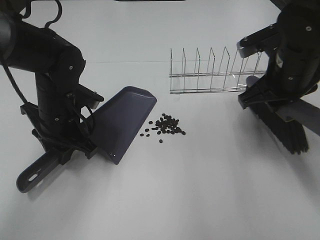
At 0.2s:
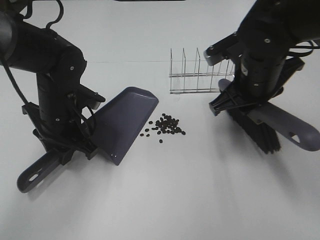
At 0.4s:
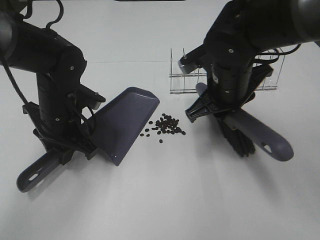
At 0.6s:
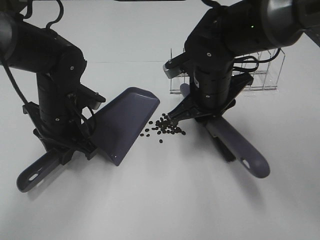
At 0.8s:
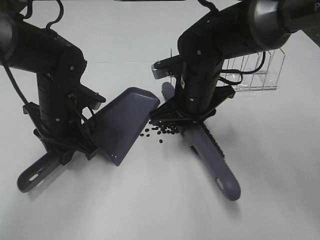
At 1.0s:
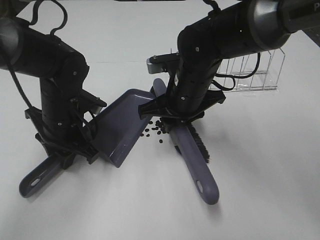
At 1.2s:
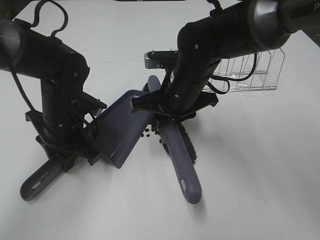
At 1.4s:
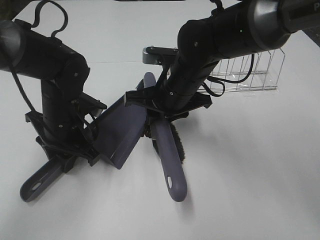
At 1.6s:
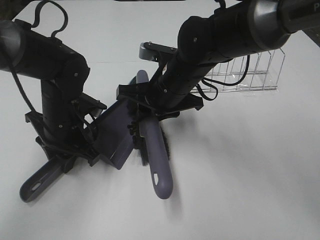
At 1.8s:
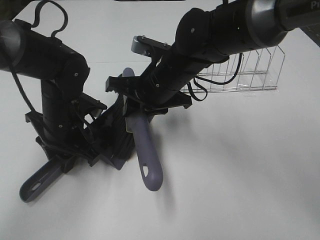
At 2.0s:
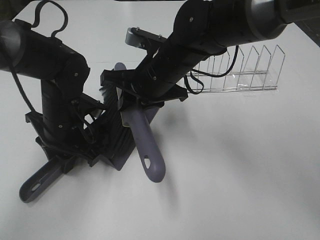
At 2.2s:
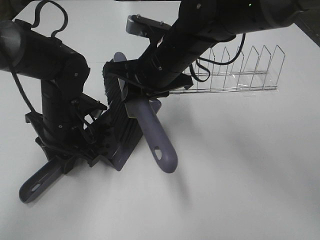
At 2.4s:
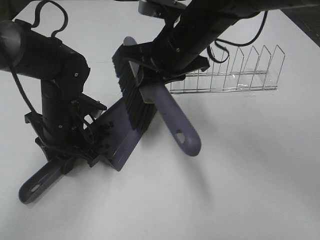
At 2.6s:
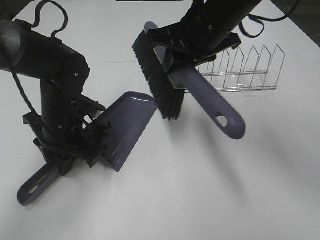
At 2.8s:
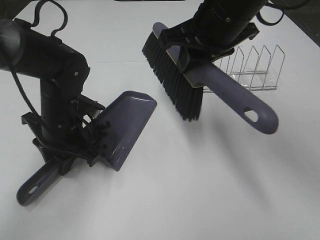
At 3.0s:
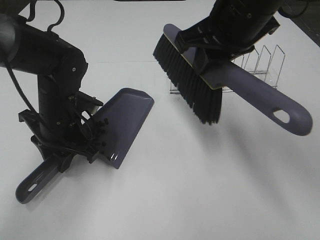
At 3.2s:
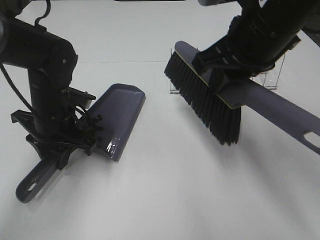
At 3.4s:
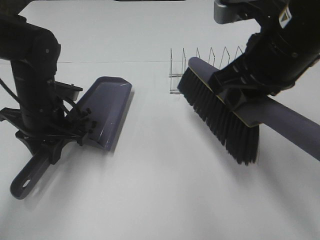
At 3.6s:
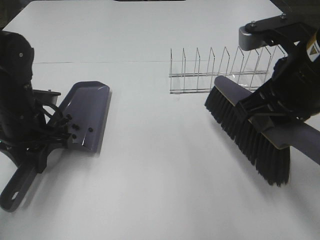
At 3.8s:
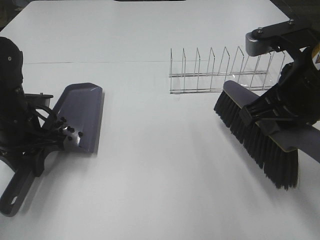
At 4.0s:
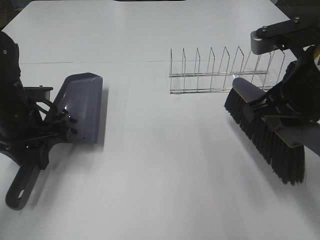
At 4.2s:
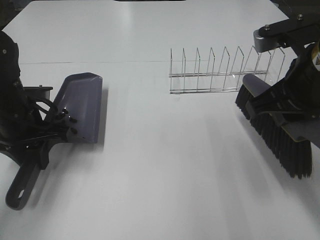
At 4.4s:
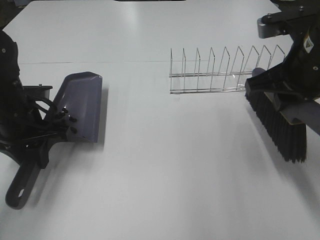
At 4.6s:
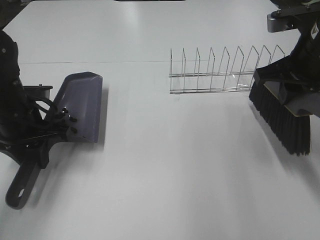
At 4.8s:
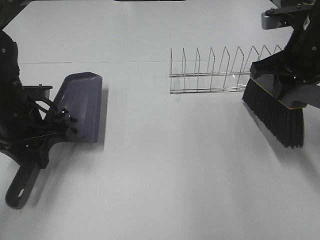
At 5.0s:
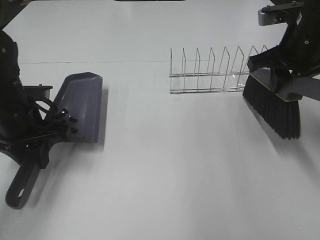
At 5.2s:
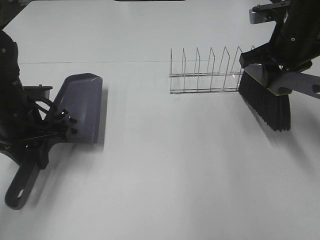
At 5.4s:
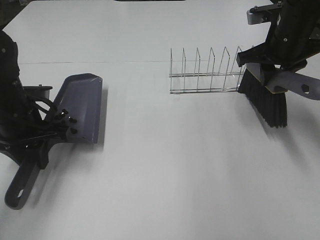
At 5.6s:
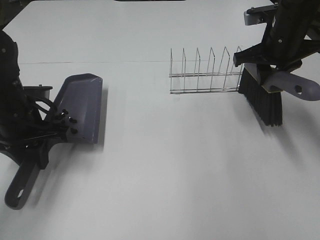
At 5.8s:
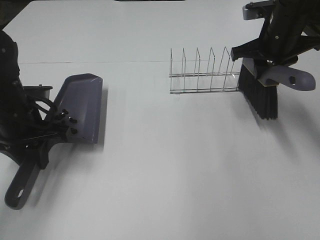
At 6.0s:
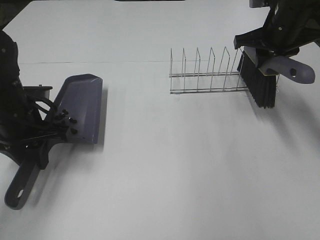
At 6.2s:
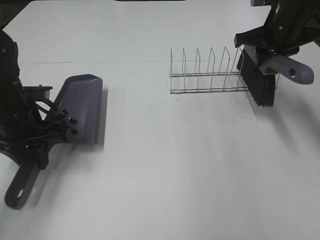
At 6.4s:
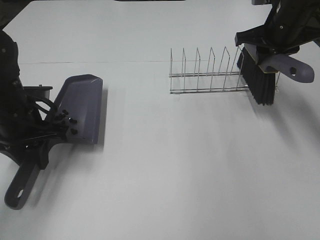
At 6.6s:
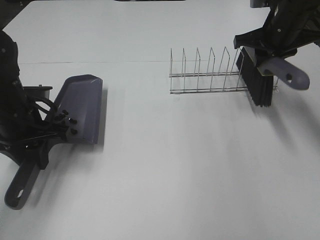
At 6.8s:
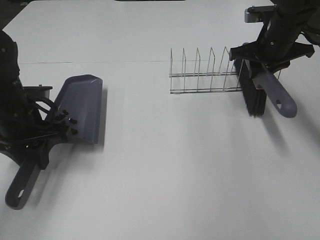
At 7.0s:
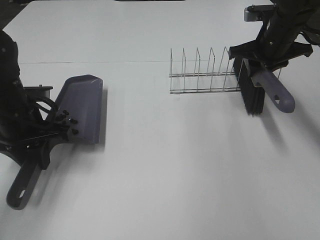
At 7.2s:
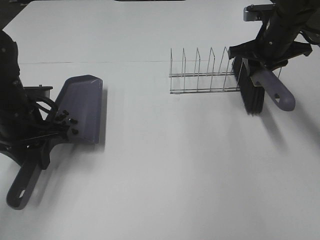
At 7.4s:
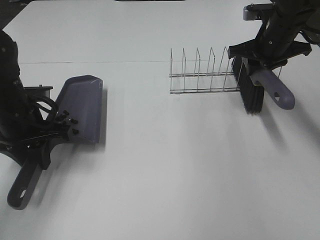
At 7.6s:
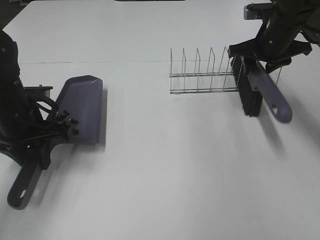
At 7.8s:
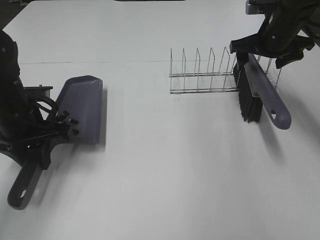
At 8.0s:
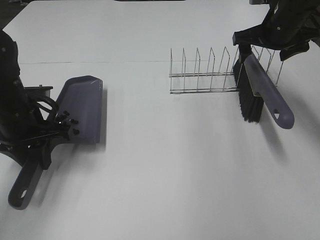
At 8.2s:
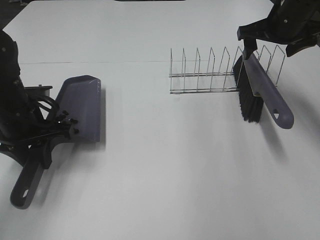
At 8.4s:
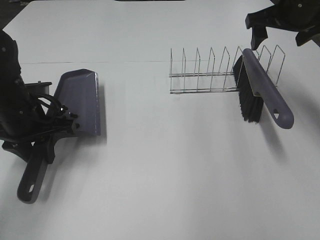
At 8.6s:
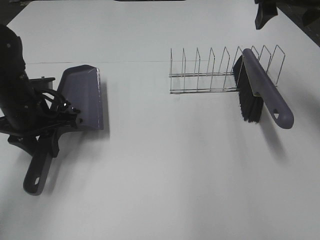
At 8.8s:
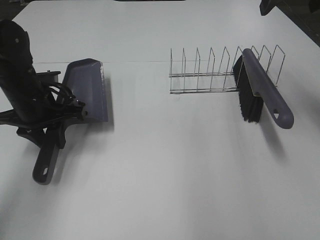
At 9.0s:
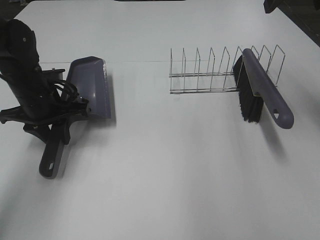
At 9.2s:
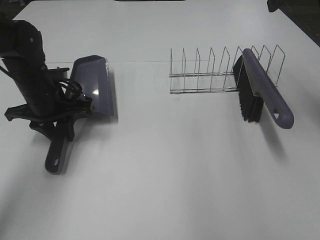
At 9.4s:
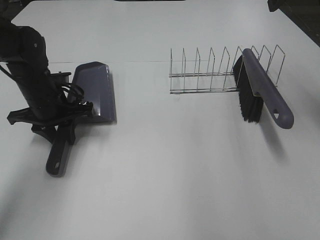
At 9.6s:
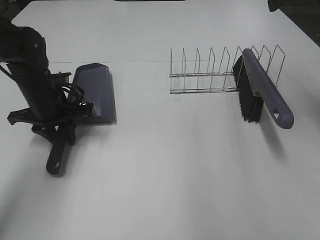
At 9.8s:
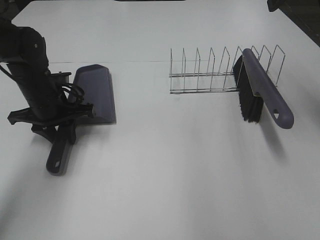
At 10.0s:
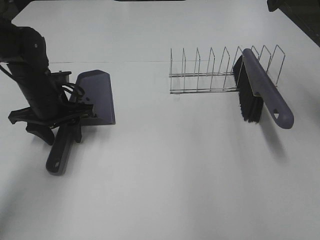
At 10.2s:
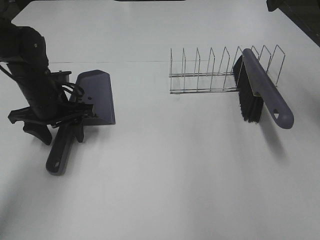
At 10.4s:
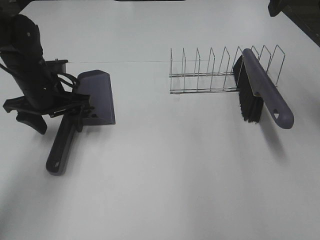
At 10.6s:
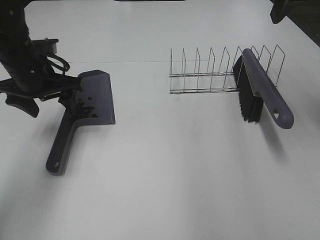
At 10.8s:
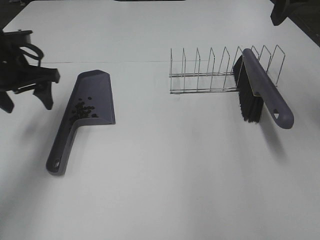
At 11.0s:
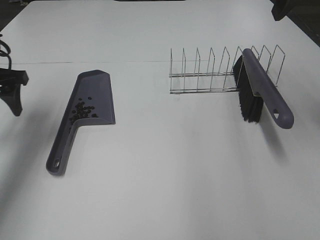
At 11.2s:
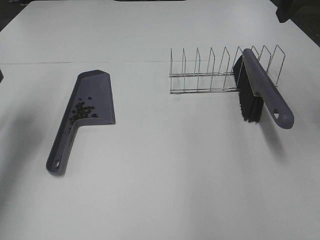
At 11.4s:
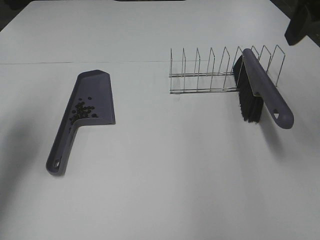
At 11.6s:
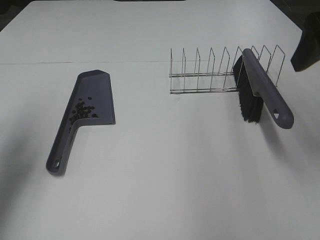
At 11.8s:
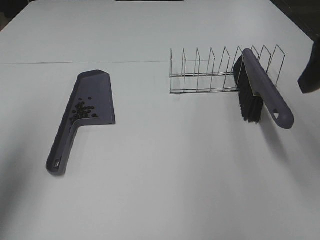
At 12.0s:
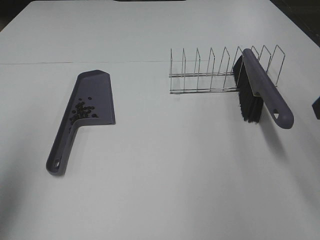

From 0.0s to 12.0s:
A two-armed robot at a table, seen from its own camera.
Task of the whole recording: Sweep Coffee Bean.
Step, from 0.0s to 2.0s: Right hand:sweep the coffee beans into the dustpan.
Step, from 2.2s to 7.6s: Right hand:place the broom on the rack.
Step, from 7.8s to 10.0s: Left hand:place the dustpan on the table.
From 0.0s to 1.6s: The right gripper shifts roughly 15 cm to the left.
From 1.6s to 3.0s: The right gripper goes roughly 15 cm upward and to the right.
From 3.0s to 4.4s: The left gripper moves to the left, roughly 5 cm; the right gripper travels to the right by about 10 cm.
From 4.4s to 6.0s: The right gripper heads forward, covering about 15 cm.
From 6.0s to 7.6s: The right gripper opens up.
From 7.6s to 9.0s: The left gripper moves forward, roughly 5 cm; the right gripper goes some 20 cm upward and backward, and opens its fingers.
From 9.0s to 10.4s: The left gripper opens up.
From 10.4s to 12.0s: The right gripper moves backward, approximately 15 cm. Meanwhile the left gripper travels backward, upward and to the left by approximately 30 cm.

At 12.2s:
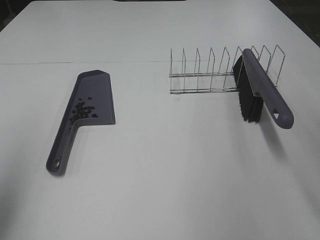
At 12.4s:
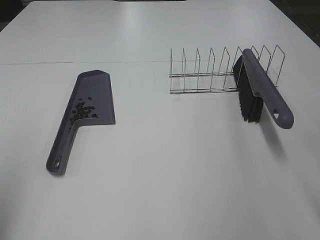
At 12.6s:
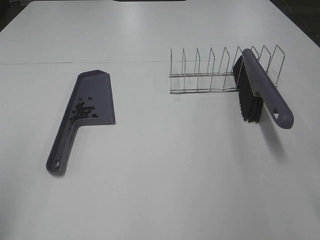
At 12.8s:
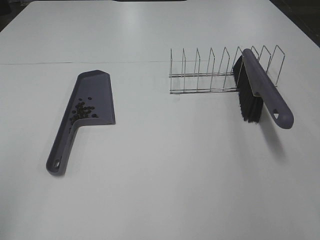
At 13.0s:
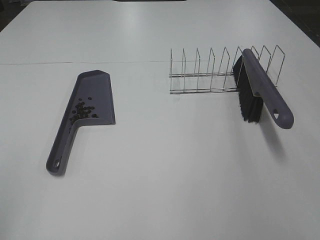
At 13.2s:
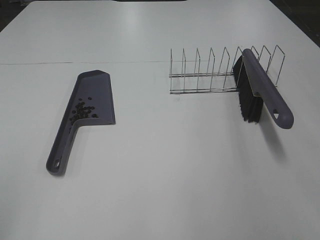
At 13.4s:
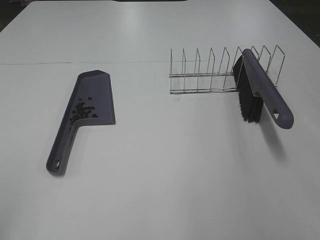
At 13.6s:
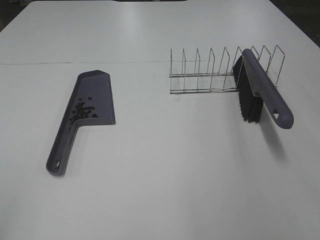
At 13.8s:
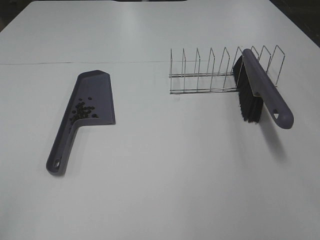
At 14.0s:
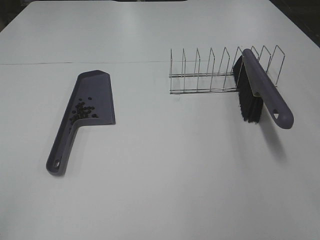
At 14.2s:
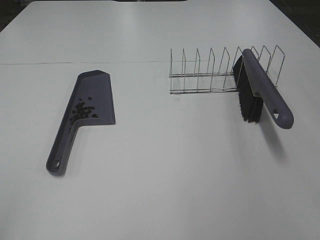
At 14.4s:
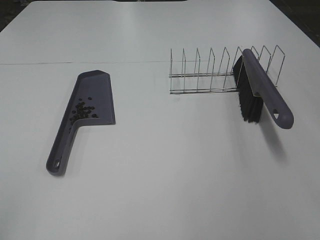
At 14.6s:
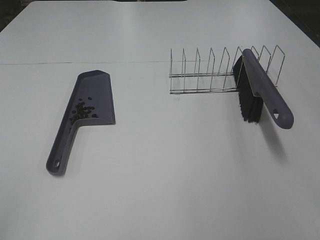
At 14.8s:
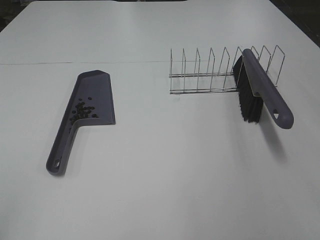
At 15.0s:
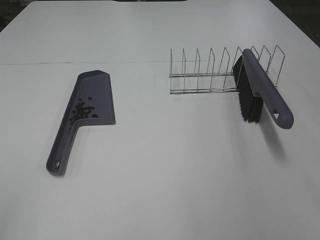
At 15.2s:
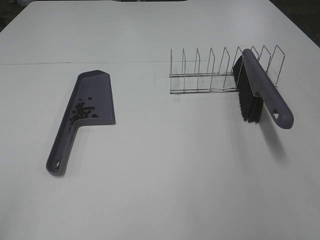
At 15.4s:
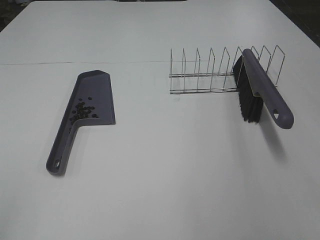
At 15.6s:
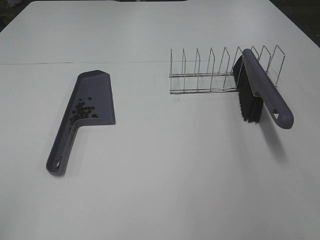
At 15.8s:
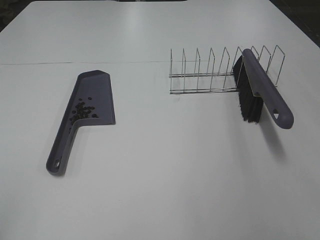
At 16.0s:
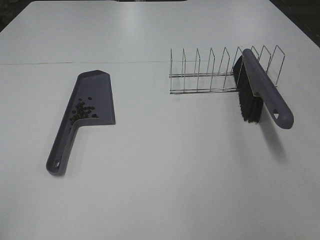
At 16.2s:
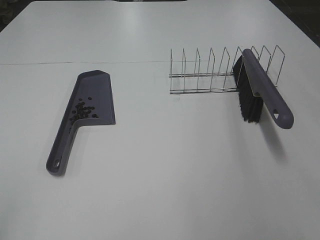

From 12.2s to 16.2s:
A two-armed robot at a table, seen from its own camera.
Task of the whole recording: Sweep Coffee Bean.
From 12.2s to 13.6s: The left gripper moves backward, some 15 cm.
From 13.6s to 14.8s: Neither gripper changes place.
From 14.8s to 16.2s: Both grippers stay about where they are.

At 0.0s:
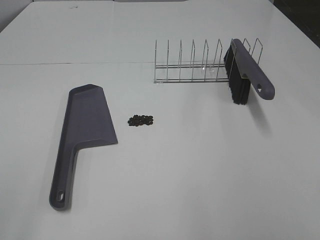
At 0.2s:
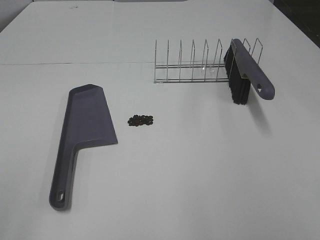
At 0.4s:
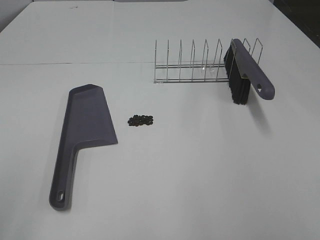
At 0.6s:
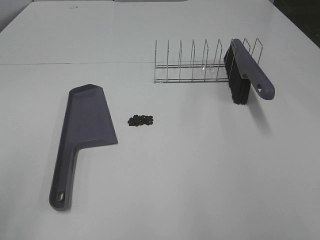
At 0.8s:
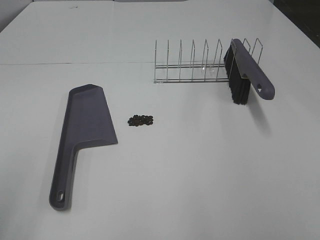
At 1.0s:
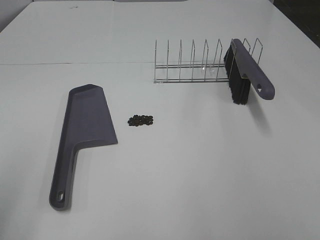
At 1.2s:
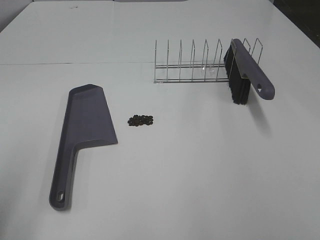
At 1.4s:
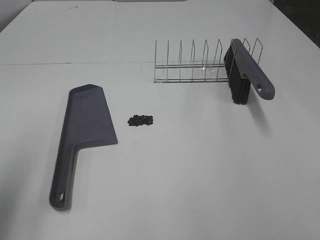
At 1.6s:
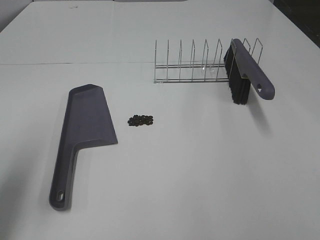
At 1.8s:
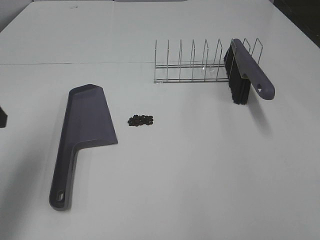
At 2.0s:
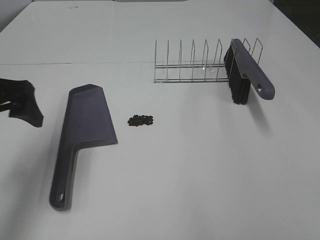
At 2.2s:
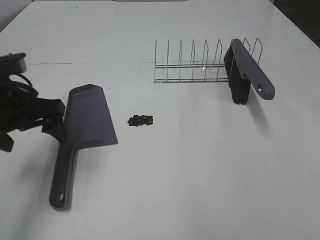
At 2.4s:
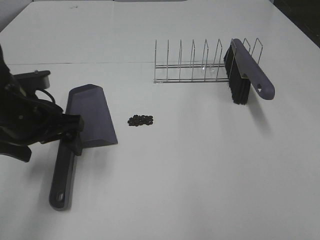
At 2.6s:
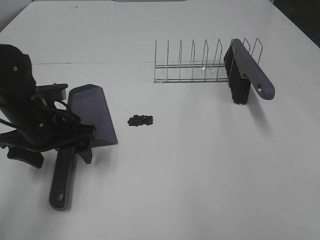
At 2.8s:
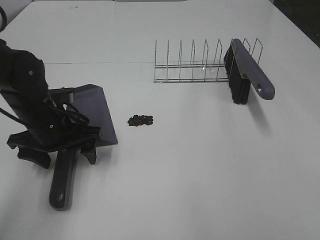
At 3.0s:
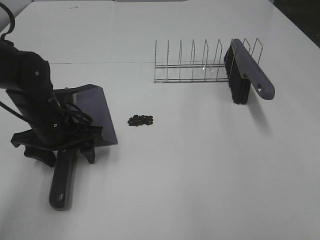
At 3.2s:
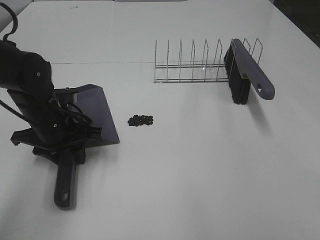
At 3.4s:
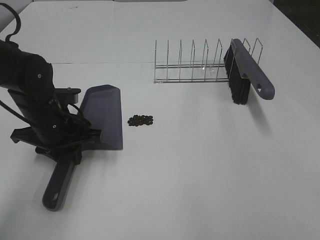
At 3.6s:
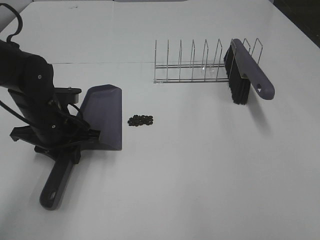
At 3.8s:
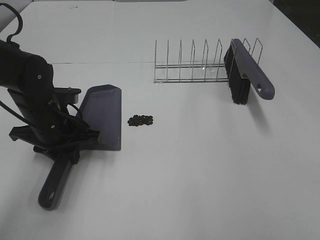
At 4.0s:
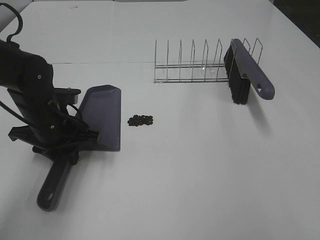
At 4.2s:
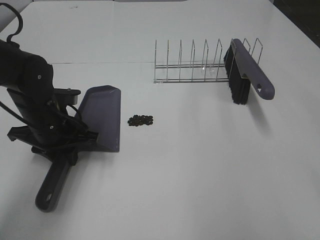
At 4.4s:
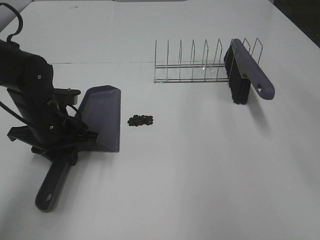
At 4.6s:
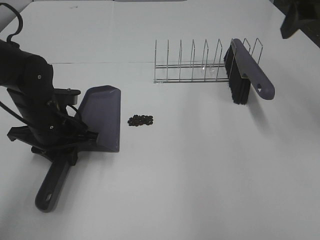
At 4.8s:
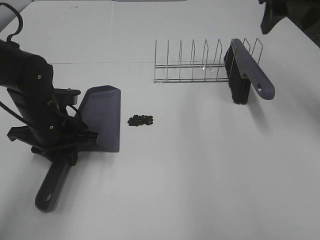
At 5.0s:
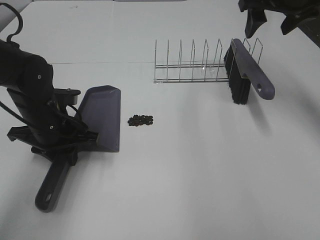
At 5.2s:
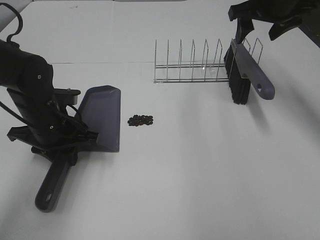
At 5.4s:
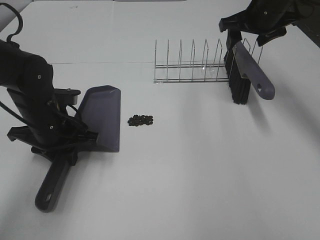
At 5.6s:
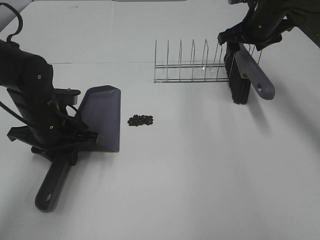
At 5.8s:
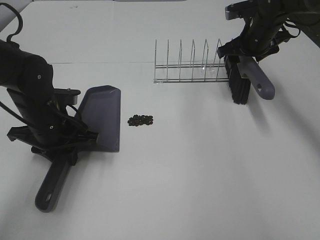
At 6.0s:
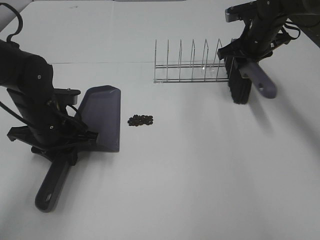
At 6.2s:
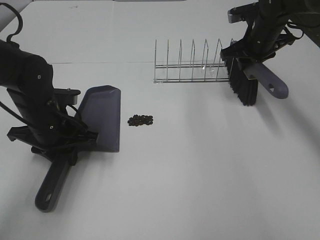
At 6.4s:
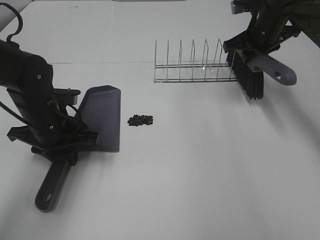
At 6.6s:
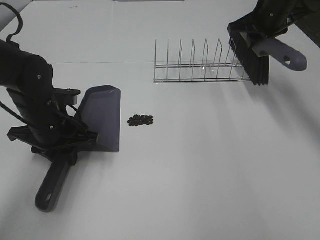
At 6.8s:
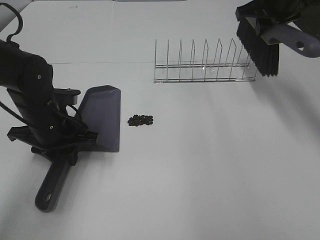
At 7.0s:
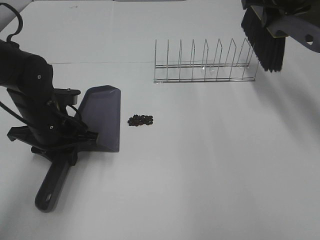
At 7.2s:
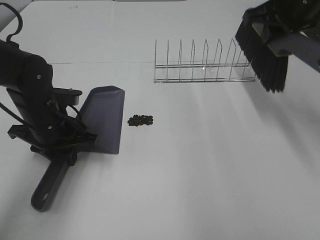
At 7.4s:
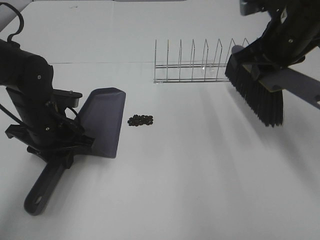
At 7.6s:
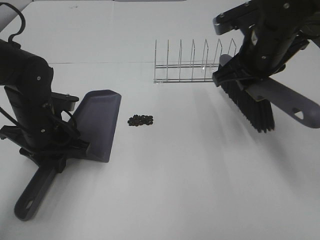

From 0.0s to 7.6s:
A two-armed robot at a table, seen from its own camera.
Task of the whole recording: Sweep Coffee Bean.
Step, from 0.0s to 3.2s: Left hand: grab the dustpan.
Step, from 3.6s to 6.0s: Right hand:grab the broom.
From 0.0s to 1.6s: The left gripper travels forward by some 20 cm.
From 1.6s to 3.0s: The left gripper goes approximately 25 cm downward, forward and to the right.
From 3.0s to 4.6s: The left gripper closes. The right gripper is displaced forward by about 35 cm.
From 4.6s to 6.0s: The right gripper moves downward and forward, about 25 cm, and closes up.
From 6.0s to 7.6s: The right gripper goes approximately 15 cm backward and to the left.
